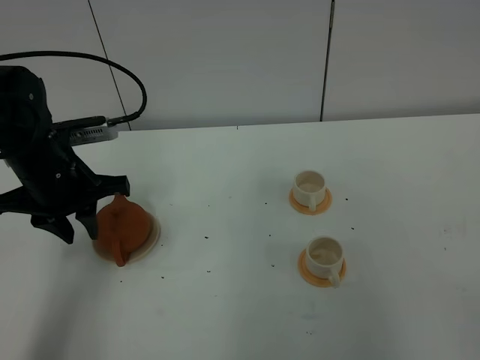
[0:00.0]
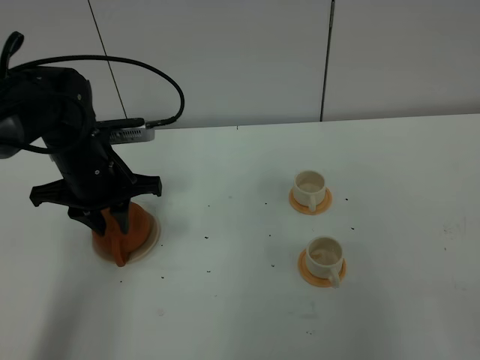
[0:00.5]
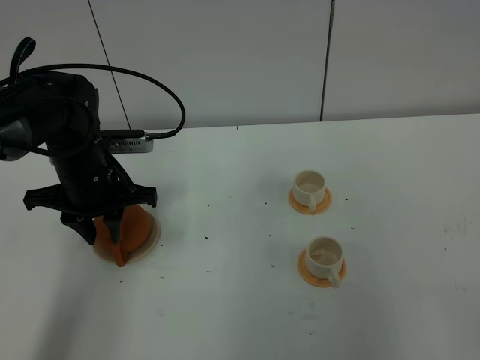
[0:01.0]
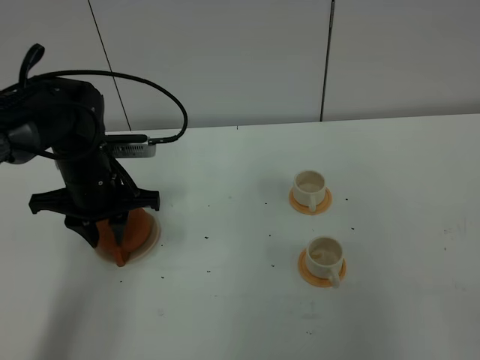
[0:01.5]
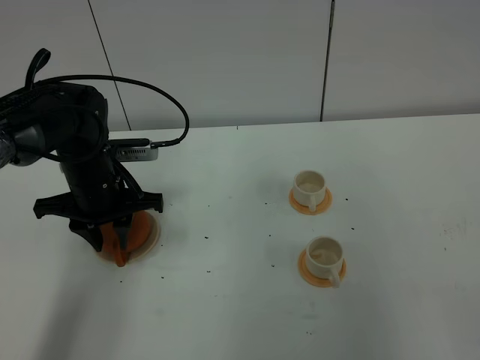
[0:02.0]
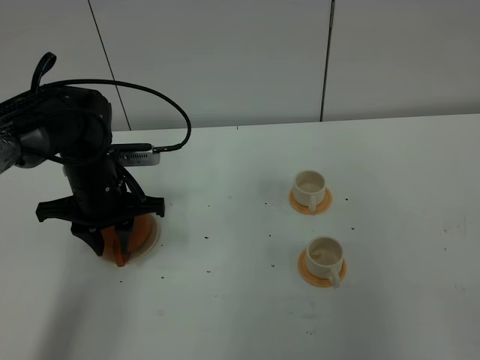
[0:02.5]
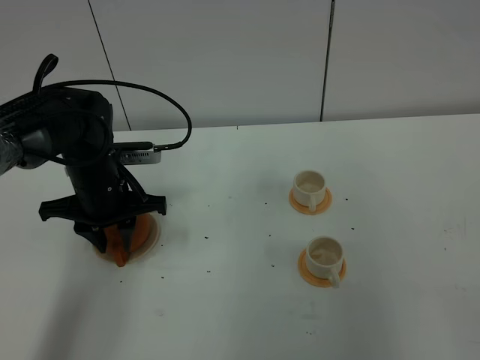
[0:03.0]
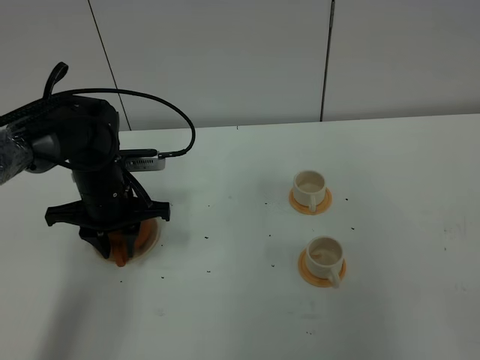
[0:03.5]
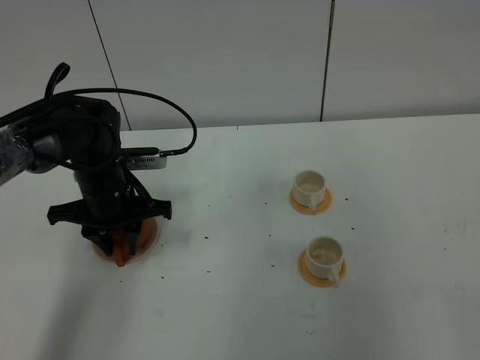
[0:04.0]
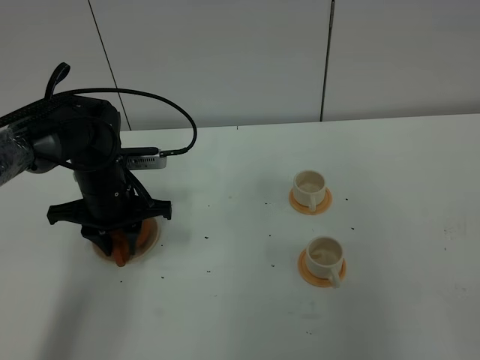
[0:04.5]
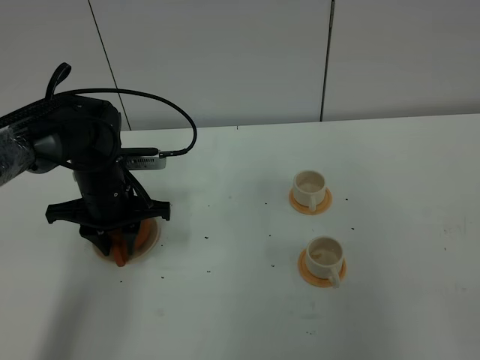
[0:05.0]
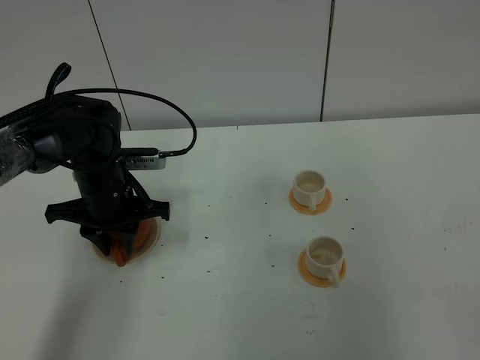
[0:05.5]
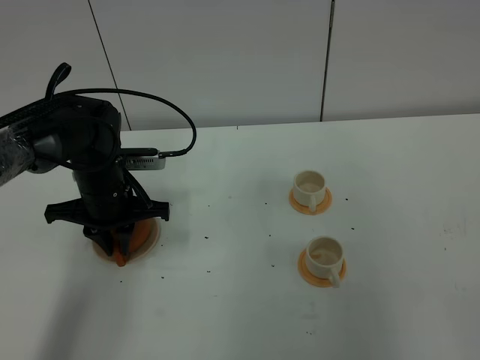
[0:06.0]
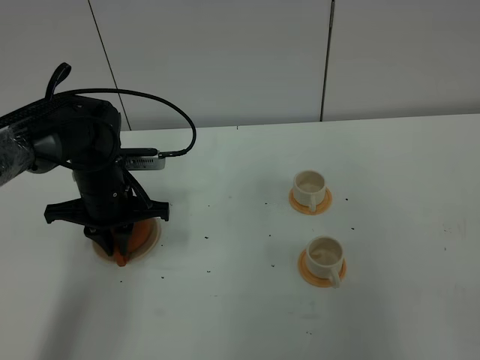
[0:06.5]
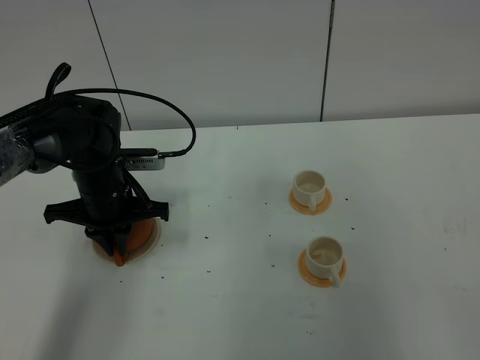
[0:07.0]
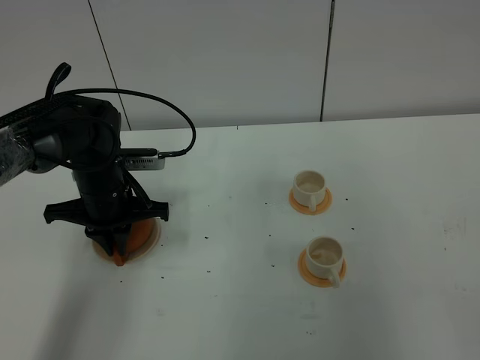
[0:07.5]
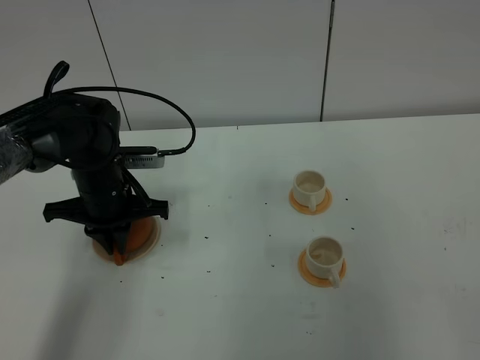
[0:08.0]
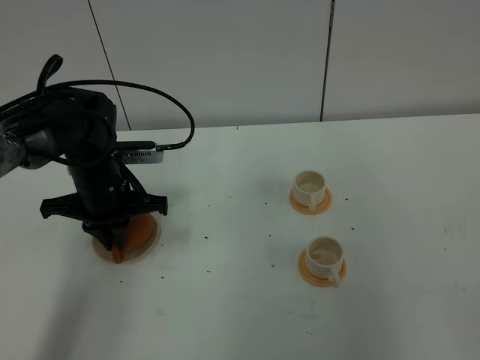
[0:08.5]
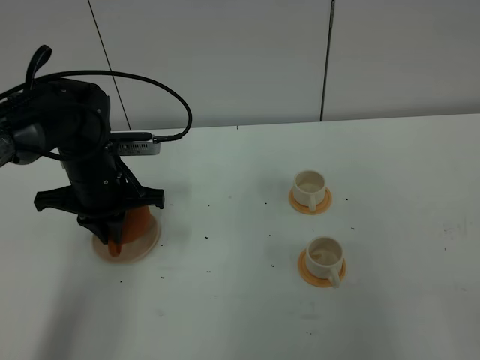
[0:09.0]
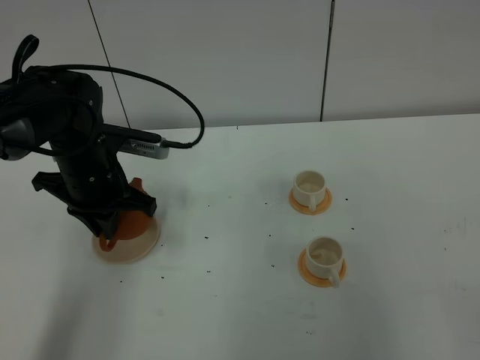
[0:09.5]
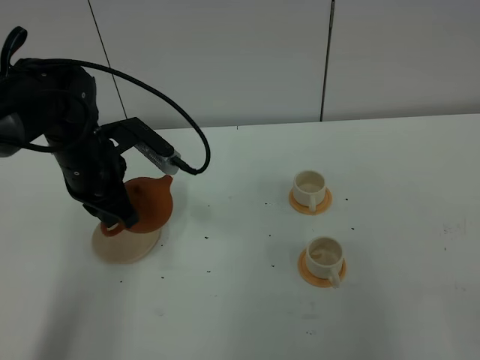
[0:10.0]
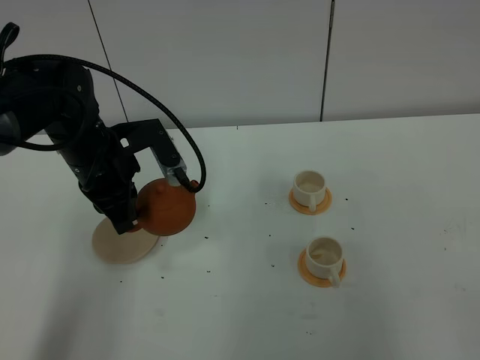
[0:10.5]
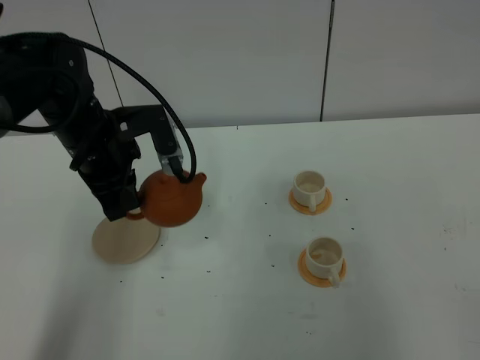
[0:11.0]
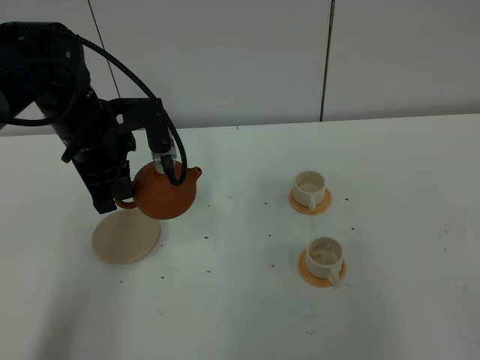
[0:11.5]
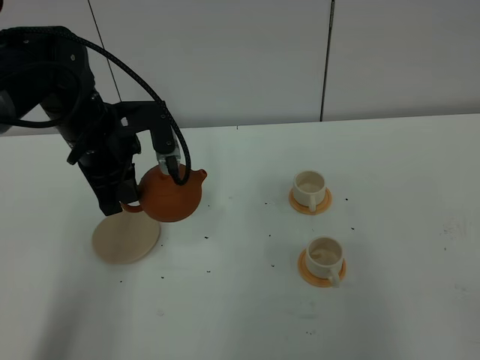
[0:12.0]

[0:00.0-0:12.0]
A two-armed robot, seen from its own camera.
Task of the whole recording: grasp the brown teapot and pour the tea into the two white teacups one by one, put the brown teapot back in its original place.
Step, 0:00.0 to 0:09.5: Pick up the teapot with the left gripper.
0:00.0 to 0:02.0: The left gripper shifts by roughly 5 cm.
0:02.0 to 0:04.0: The grippers move only a little.
0:04.0 to 0:06.0: The left gripper closes up.
0:06.0 to 0:08.0: The two grippers keep their place.
0:08.0 to 0:10.0: The left gripper goes about 5 cm upward.

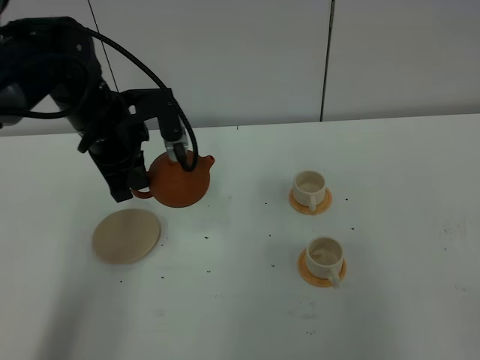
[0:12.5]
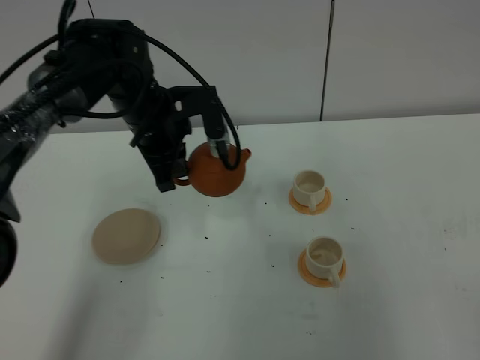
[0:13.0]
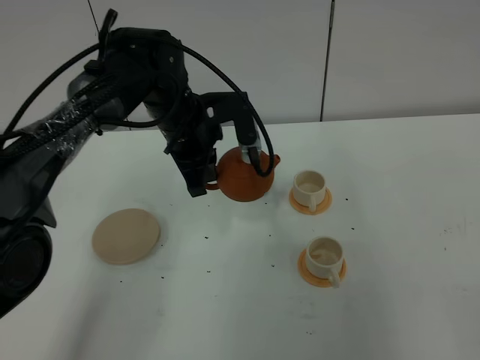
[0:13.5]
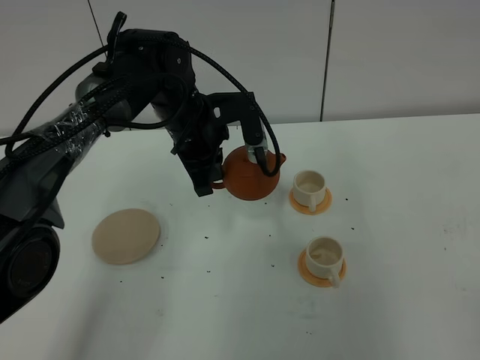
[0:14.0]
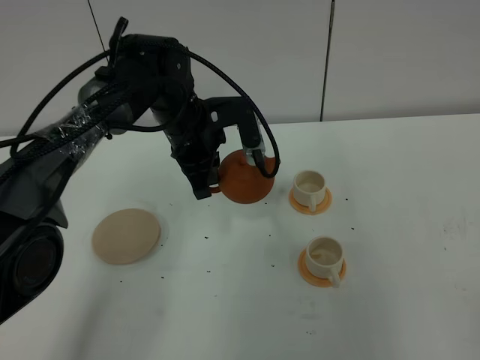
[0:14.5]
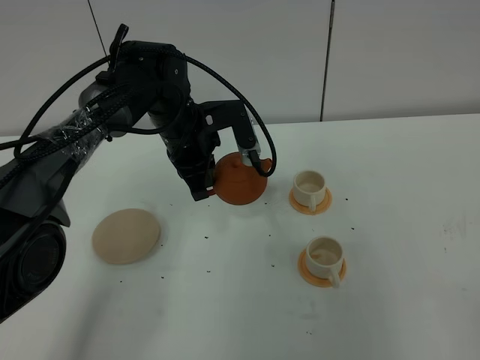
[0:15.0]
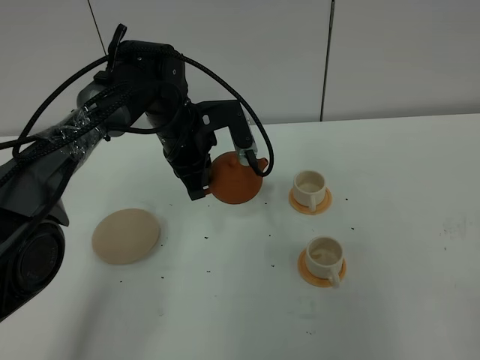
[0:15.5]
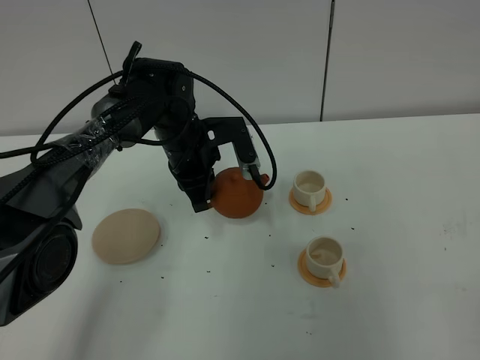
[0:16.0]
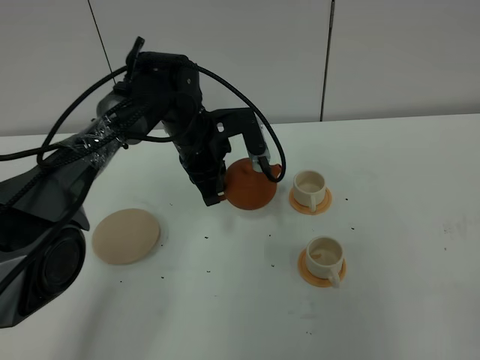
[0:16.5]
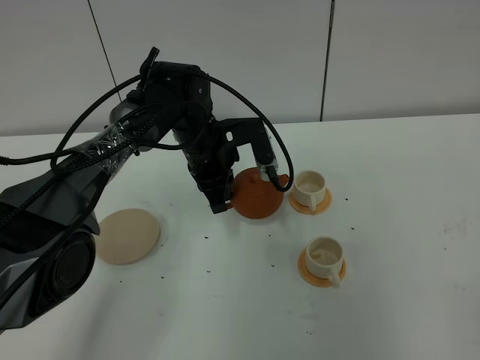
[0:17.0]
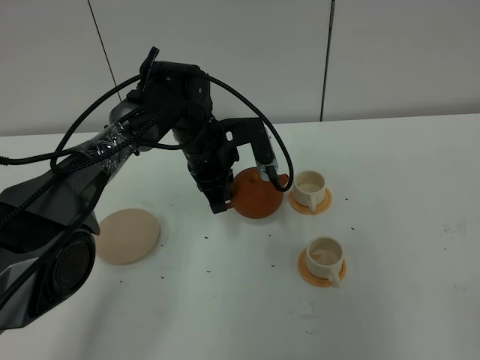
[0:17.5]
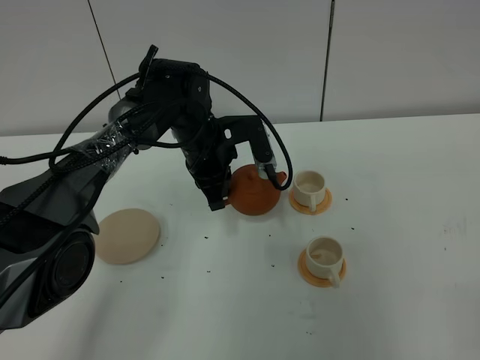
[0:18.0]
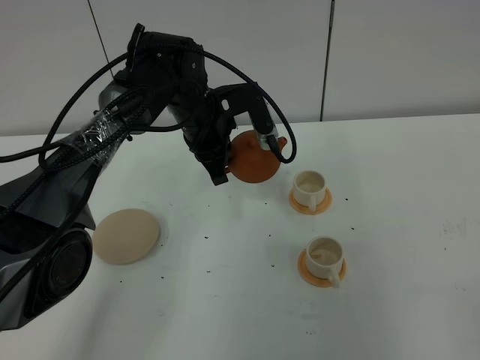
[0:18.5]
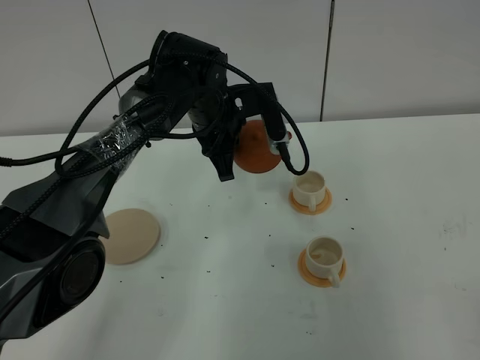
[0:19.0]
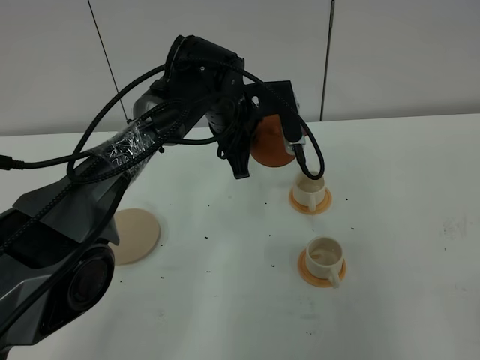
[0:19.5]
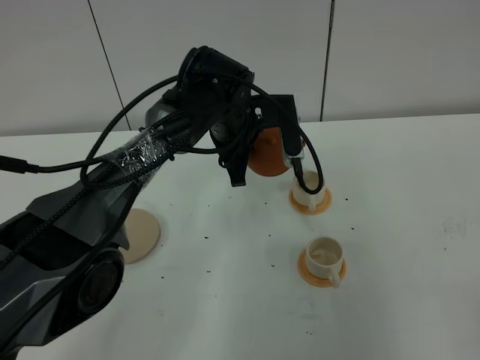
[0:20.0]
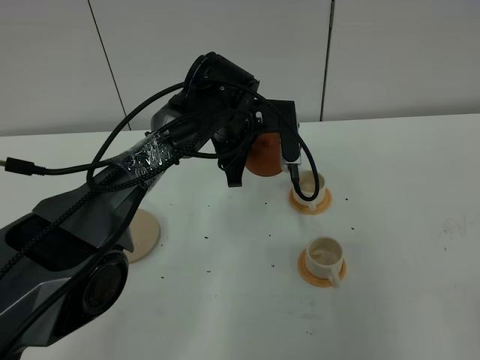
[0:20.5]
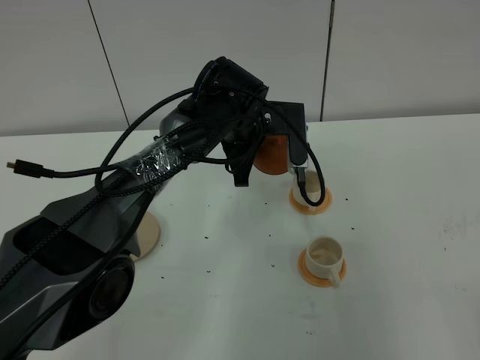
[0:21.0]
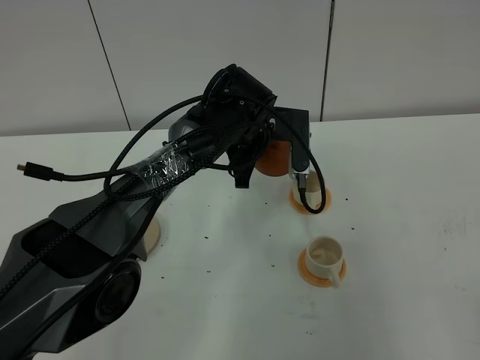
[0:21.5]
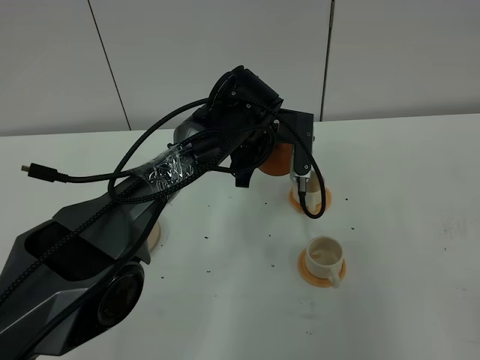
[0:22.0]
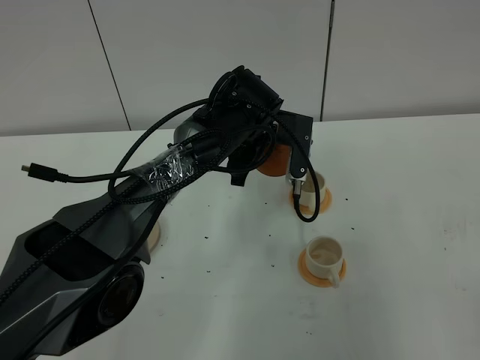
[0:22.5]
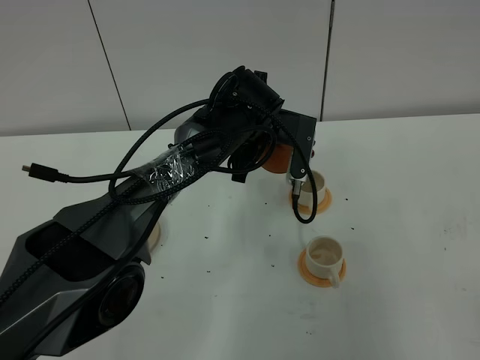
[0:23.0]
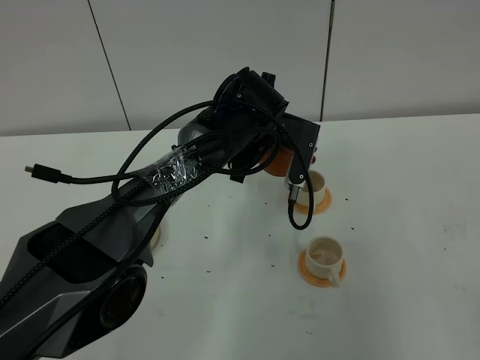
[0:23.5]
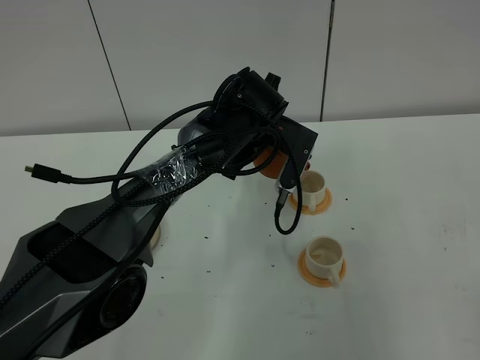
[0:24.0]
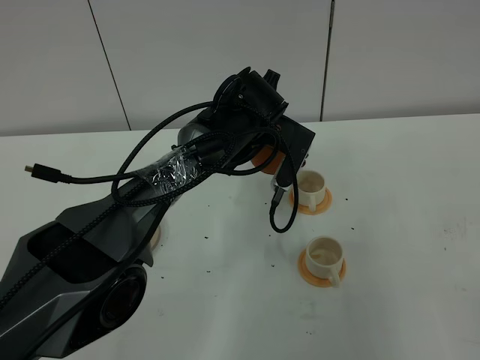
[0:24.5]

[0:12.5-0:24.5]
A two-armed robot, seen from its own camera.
Task of the whole recording: grasp the brown teapot and pour the tea into the two white teacups one by one, put the brown teapot back in its original place.
0:12.5 to 0:14.5: The left gripper heads to the right, covering about 10 cm.
0:14.5 to 0:18.5: The grippers make only small movements.
0:18.5 to 0:20.5: The left gripper changes place by some 5 cm.
0:20.5 to 0:22.5: The grippers stay close to where they were, moving slightly.
0:22.5 to 0:24.5: There are only small adjustments of the grippers.

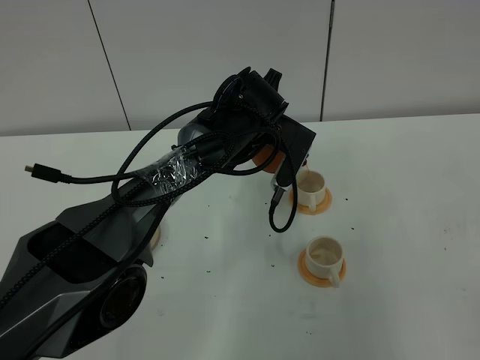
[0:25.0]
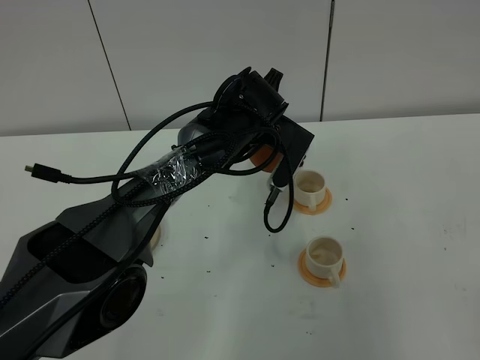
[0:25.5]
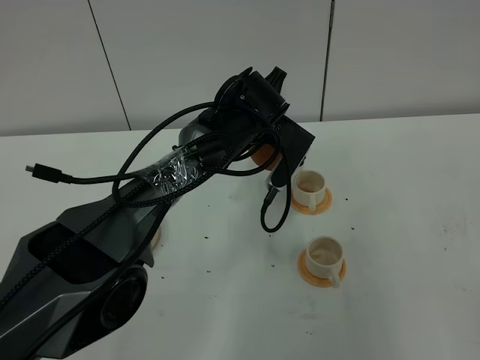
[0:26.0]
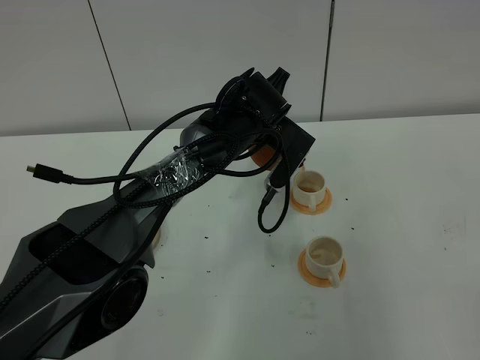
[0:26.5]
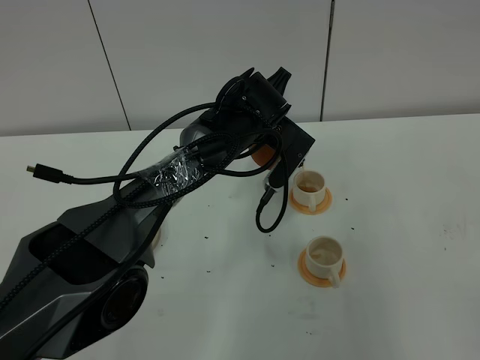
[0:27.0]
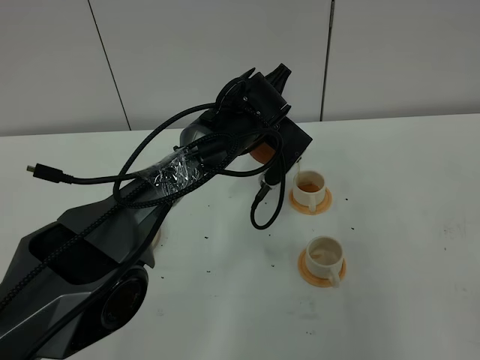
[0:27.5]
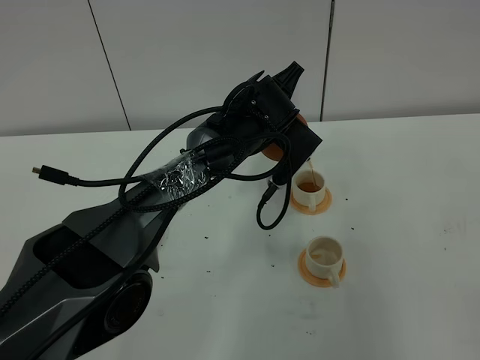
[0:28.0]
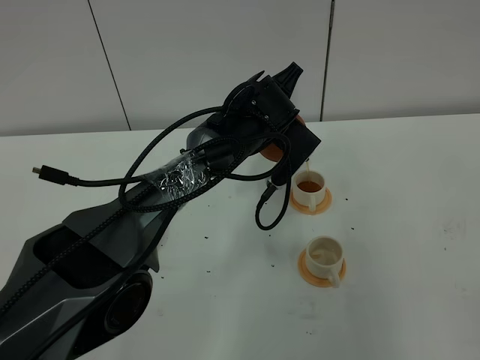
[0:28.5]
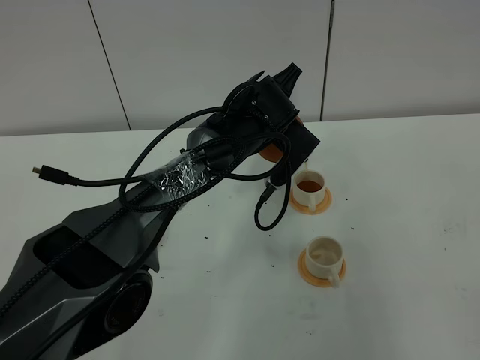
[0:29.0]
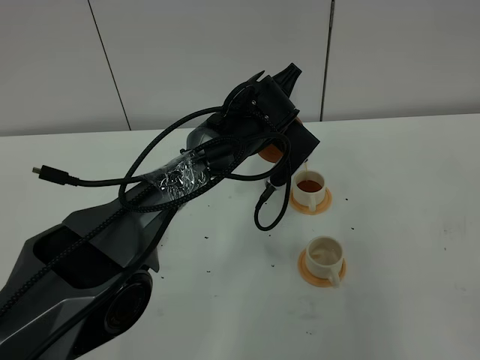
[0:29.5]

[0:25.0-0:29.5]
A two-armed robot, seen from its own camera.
Task of the whole recording: grasp the brown teapot and pour the tea into the two white teacups one by one, put the brown teapot back in its original place.
0:25.0 to 0:29.5: The grippers make only small movements.
